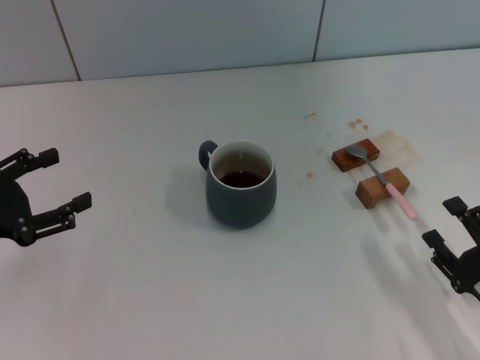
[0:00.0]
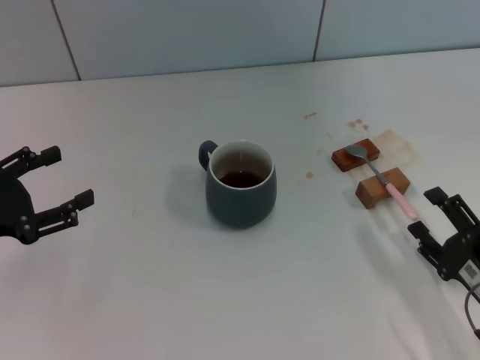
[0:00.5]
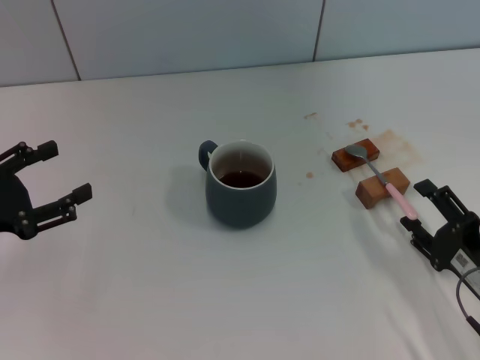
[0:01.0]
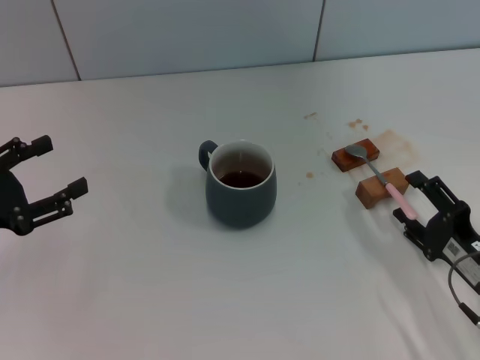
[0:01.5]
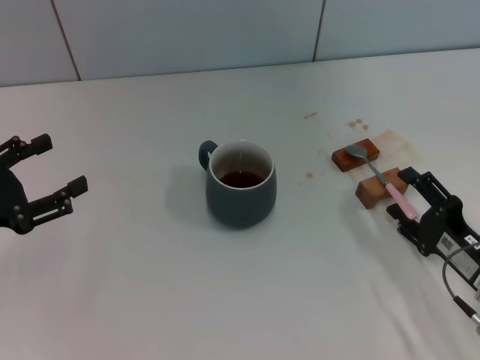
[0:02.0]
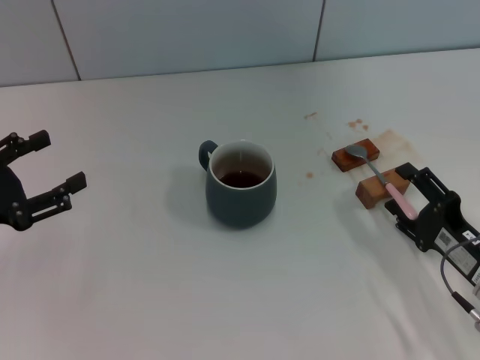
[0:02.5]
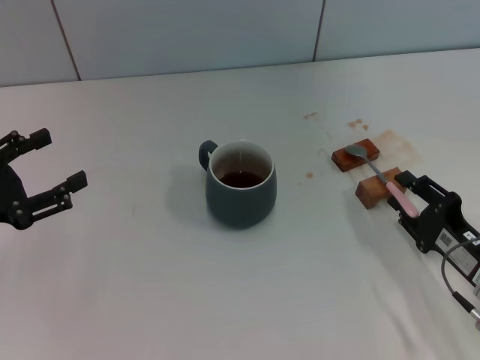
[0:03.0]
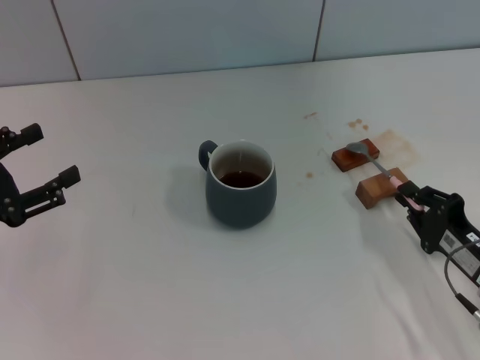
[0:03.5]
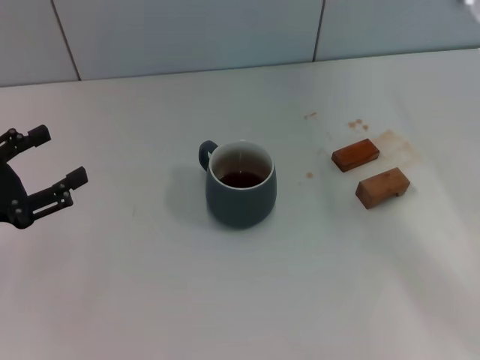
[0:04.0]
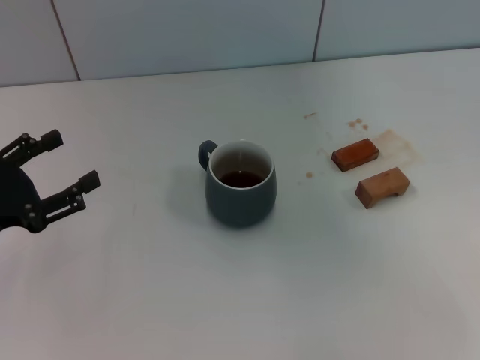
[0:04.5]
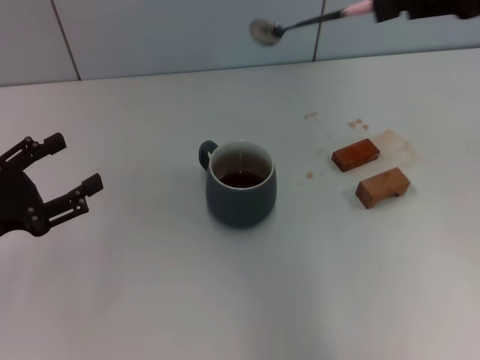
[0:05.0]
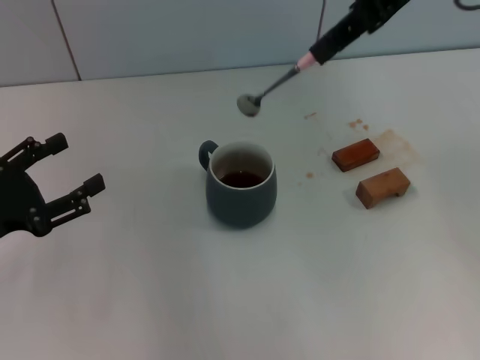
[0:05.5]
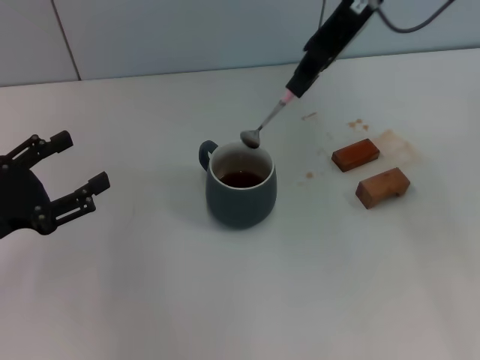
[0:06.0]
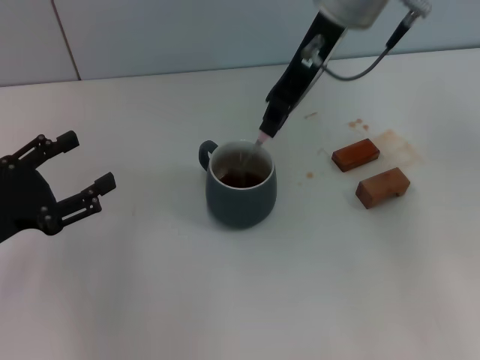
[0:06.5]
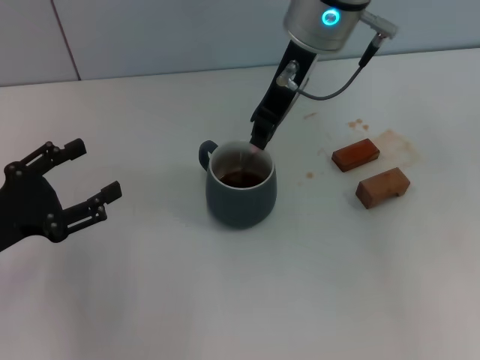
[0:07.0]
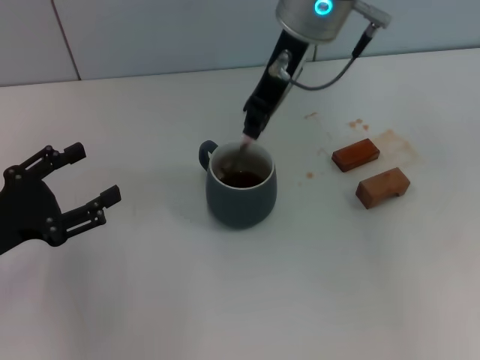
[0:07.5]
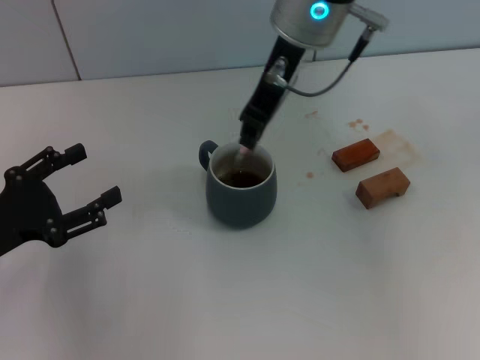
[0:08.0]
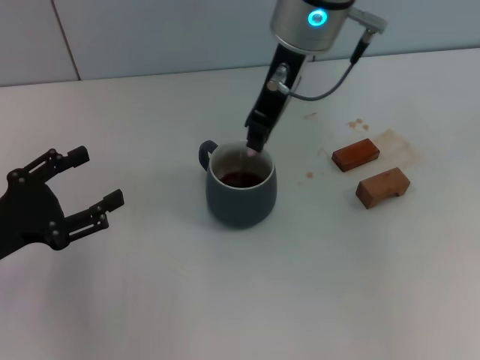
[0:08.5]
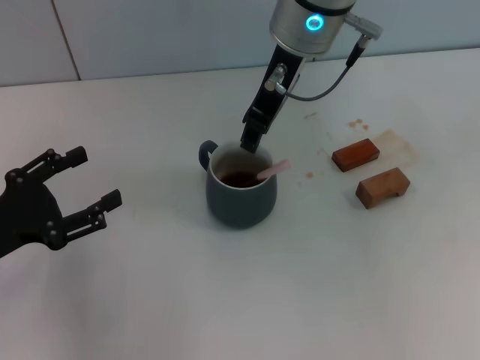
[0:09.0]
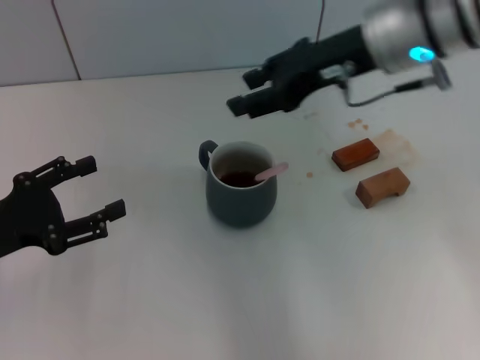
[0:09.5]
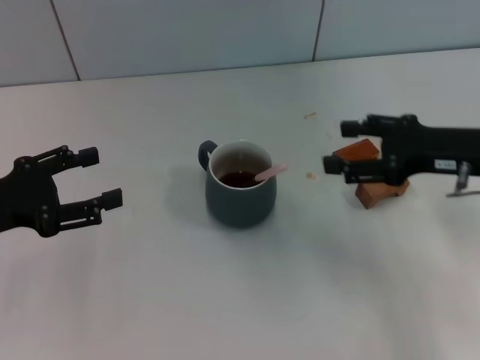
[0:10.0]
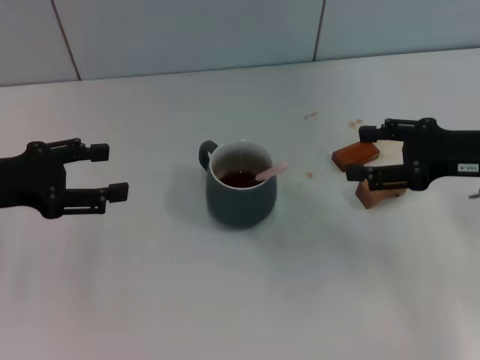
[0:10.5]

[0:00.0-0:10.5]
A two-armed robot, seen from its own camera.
Task of the whole recording: Move the grey cup to the center, lift the pink spoon, stir it three times in the cup, and put the spoon into the cup.
Step, 0:00.0 to 0:03.5: Pick up the spoon with the right gripper.
Step, 0:04.0 to 0:09.0: Stir the coffee in the cup with the right gripper.
0:00.0 to 0:02.0: The right gripper moves forward, some 5 cm.
0:02.0 to 0:04.0: The right gripper moves upward and to the right, roughly 10 cm, and closes.
0:04.0 to 0:06.5: The right gripper travels to the left, upward and forward by about 35 cm.
0:06.5 to 0:08.5: The grippers stay close to where they were, moving slightly.
0:08.5 to 0:10.5: The left gripper is displaced forward and upward by roughly 10 cm; the right gripper goes some 30 cm to the right, downward and backward, and opens its fingers.
